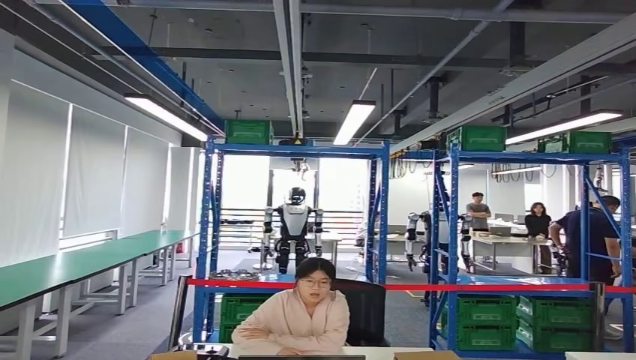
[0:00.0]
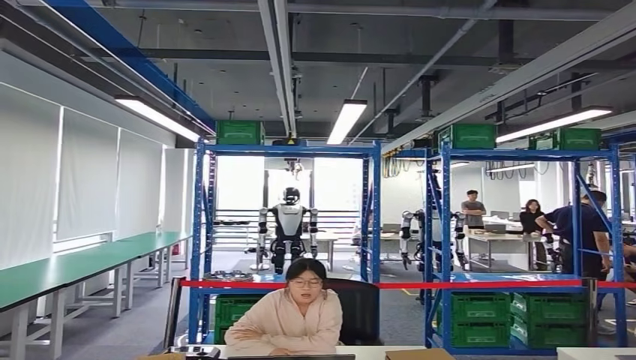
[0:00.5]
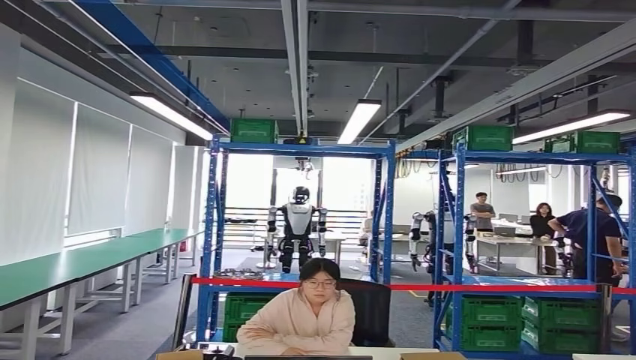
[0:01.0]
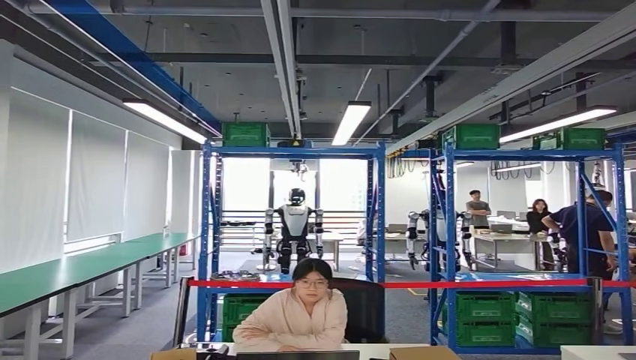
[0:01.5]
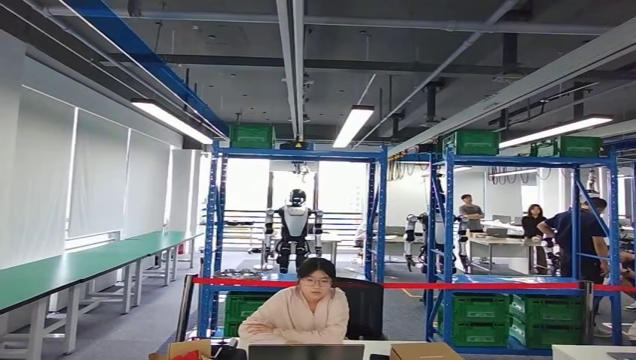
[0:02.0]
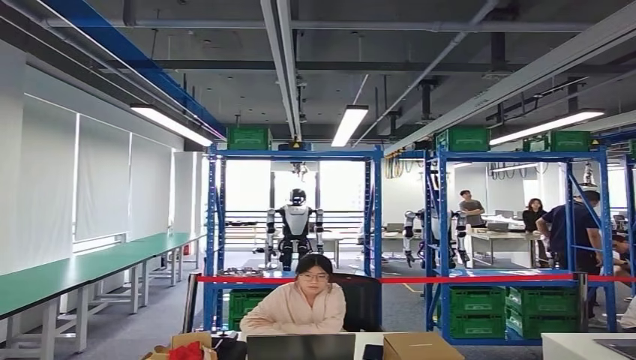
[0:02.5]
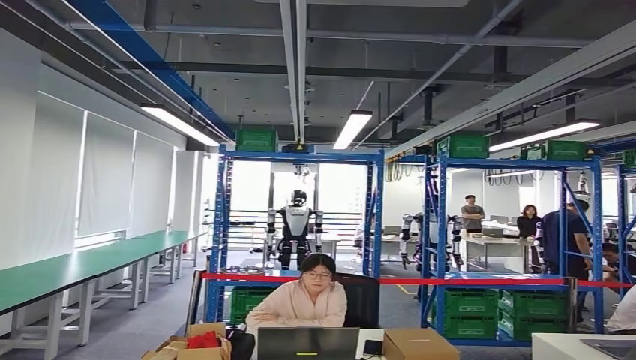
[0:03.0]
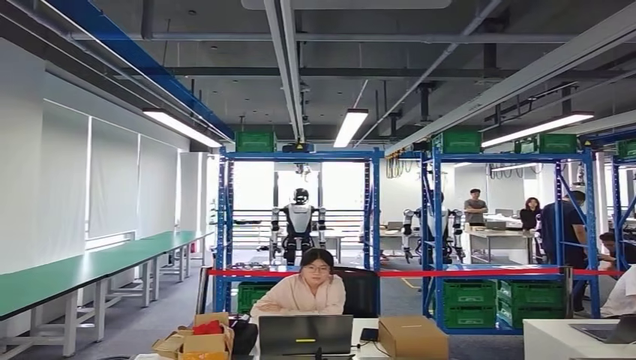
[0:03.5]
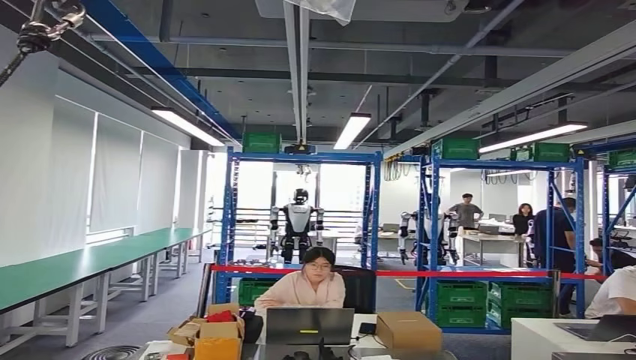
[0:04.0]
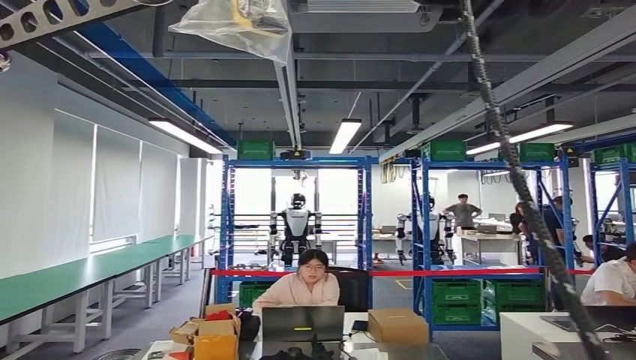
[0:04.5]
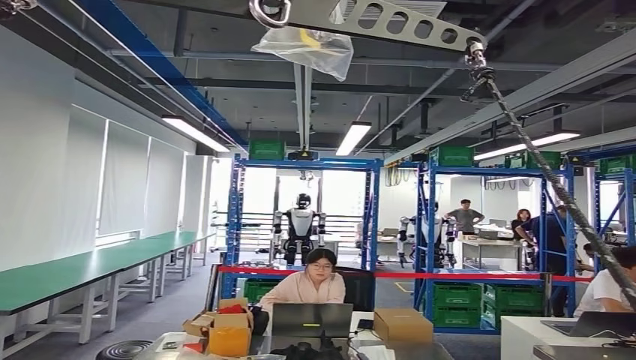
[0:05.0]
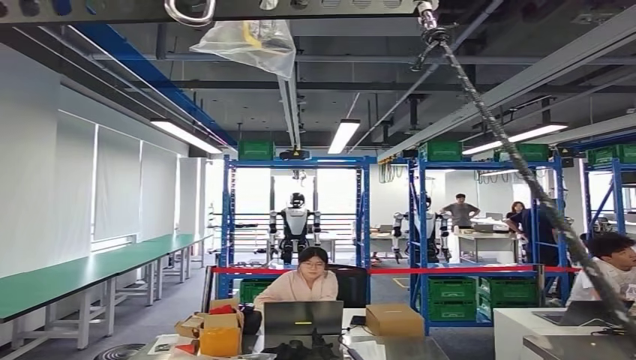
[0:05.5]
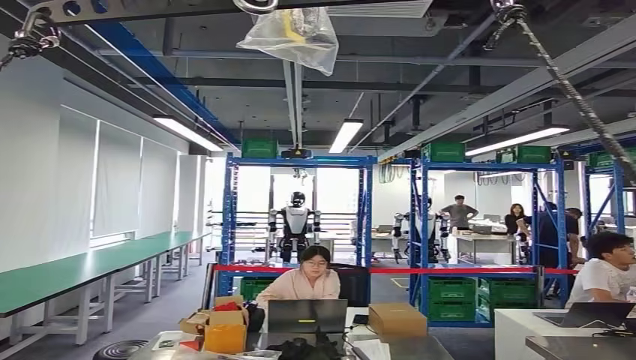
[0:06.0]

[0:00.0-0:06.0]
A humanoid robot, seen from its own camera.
Step, 0:00.0 to 0:01.5: Insert the small component into the corresponding slot on the workbench.
Step, 0:02.0 to 0:05.5: Return to the initial position at the workbench.
